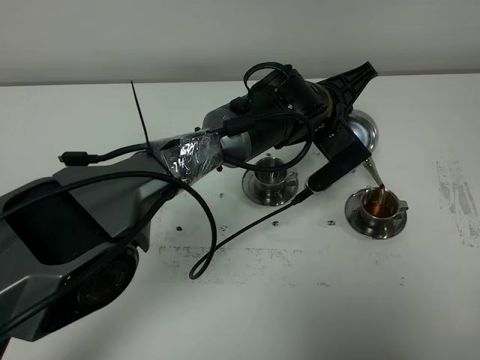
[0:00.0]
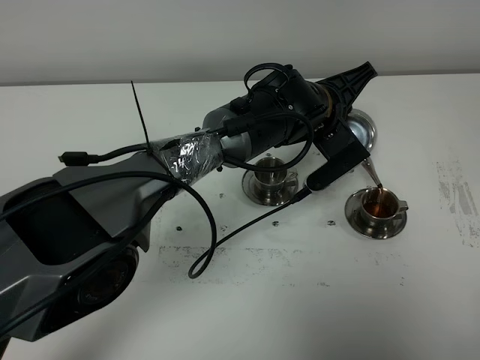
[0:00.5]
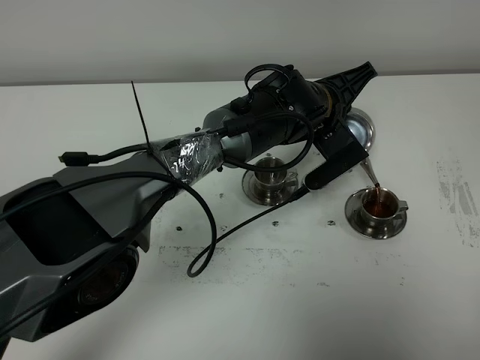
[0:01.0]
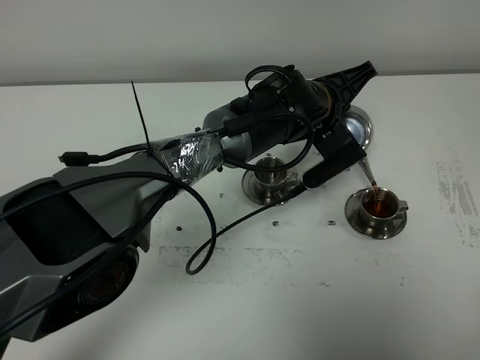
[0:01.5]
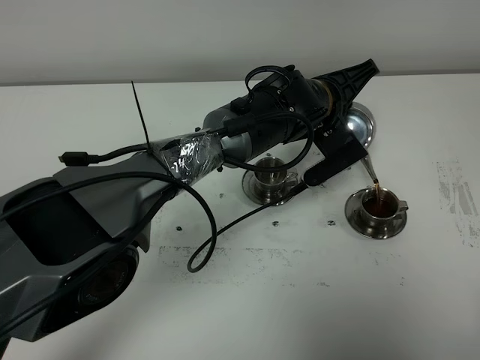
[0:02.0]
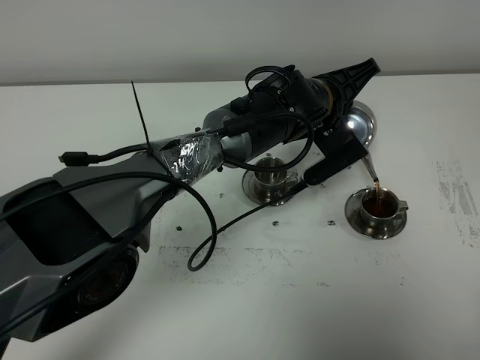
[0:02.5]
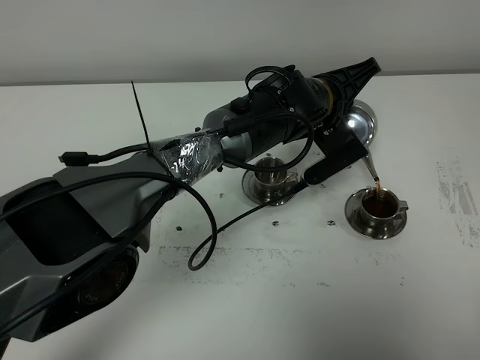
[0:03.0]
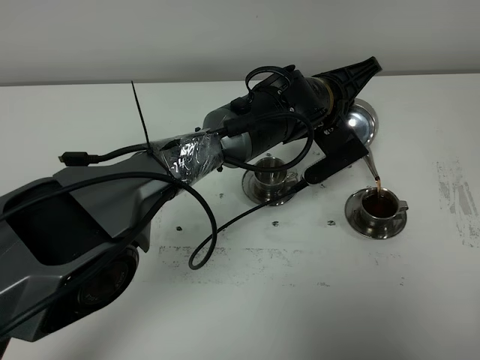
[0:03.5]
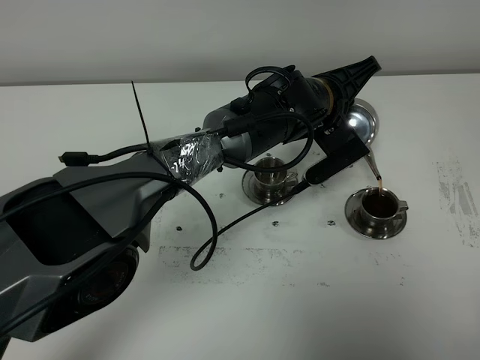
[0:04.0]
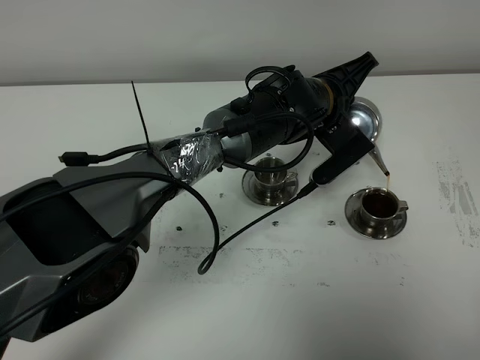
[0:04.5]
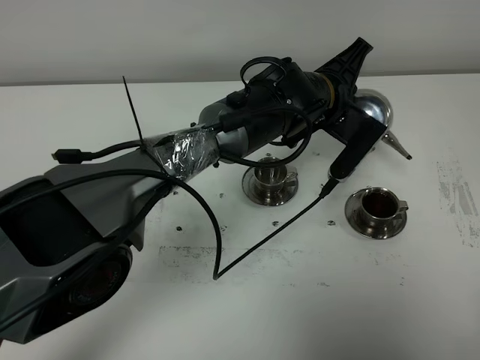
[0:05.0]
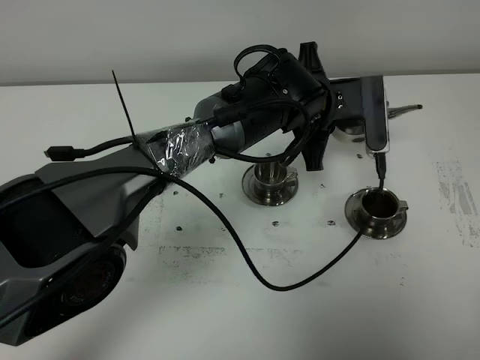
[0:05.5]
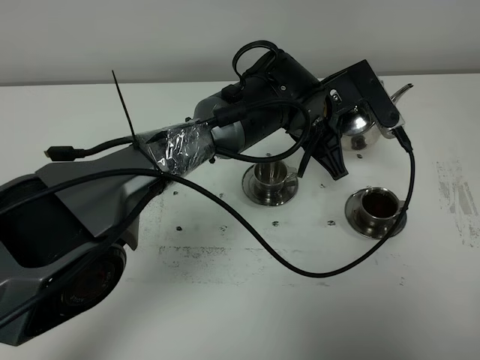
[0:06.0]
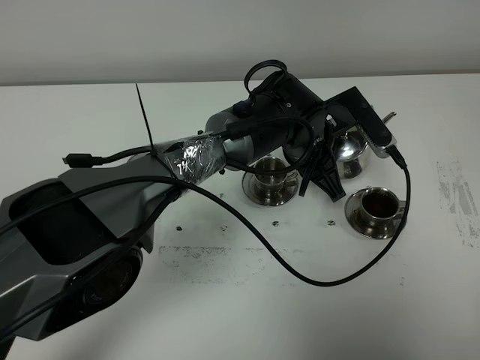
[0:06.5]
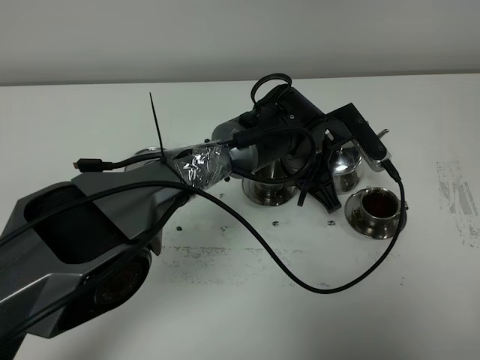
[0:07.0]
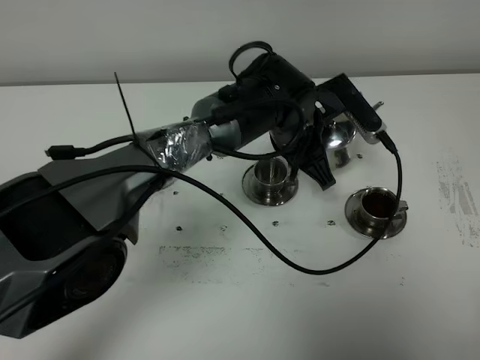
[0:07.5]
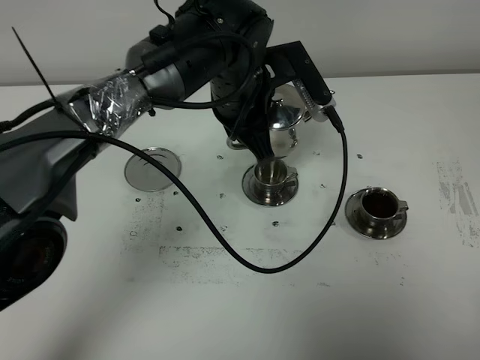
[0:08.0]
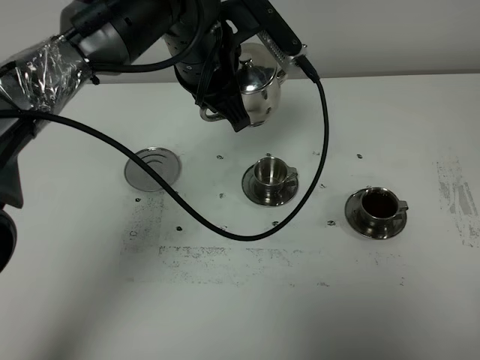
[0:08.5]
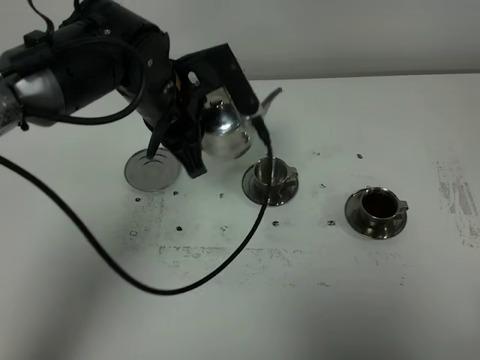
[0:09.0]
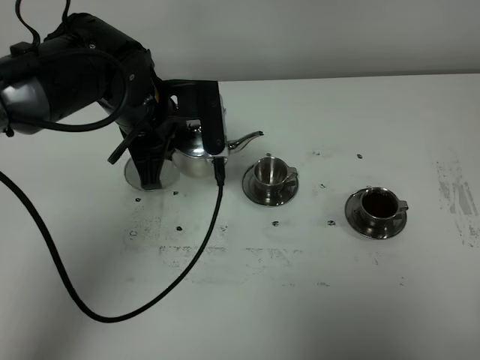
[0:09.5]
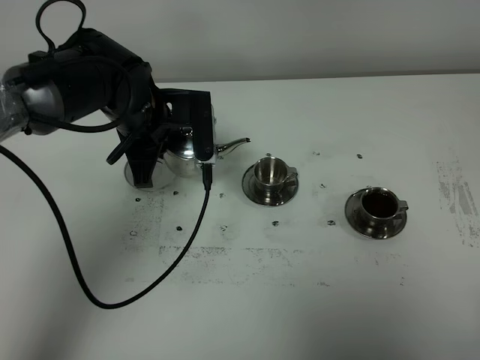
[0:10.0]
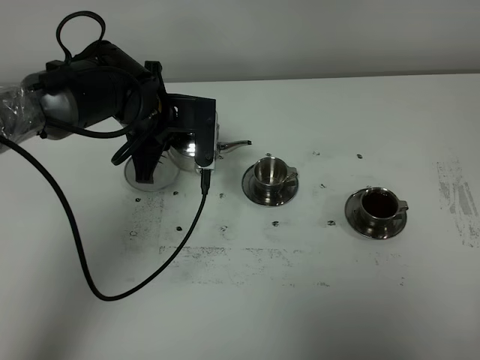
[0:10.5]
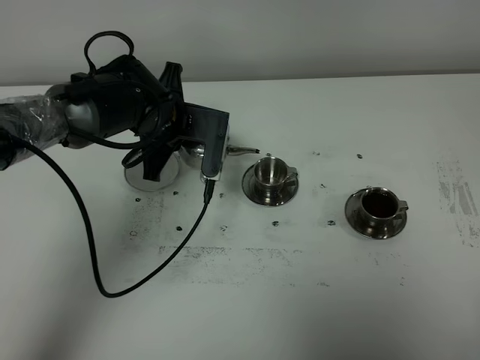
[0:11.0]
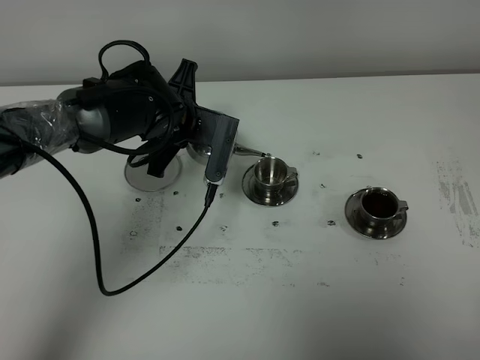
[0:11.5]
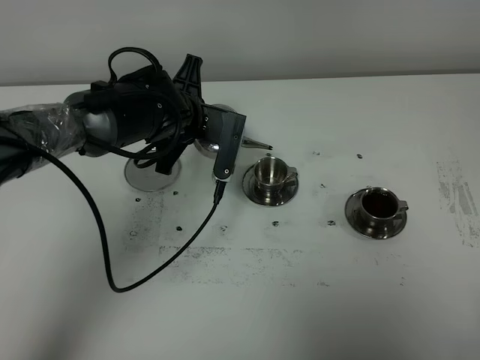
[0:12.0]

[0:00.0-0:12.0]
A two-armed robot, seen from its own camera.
Task of the whole recording: grasp the stainless steel teapot and pour the tea into the two stainless steel teacups one by one, put the stainless steel teapot back in its original place.
0:00.0 to 0:02.0: There are only small adjustments of the grippers.
0:02.0 to 0:04.0: Both grippers stay about where they are.
0:06.0 to 0:08.0: The left gripper is displaced to the left and upward by about 10 cm.
0:08.0 to 0:10.0: The left gripper moves to the left, about 10 cm.
0:10.0 to 0:12.0: The left gripper ends up some 5 cm from where it was.

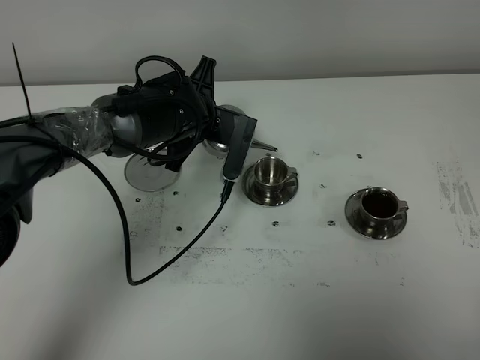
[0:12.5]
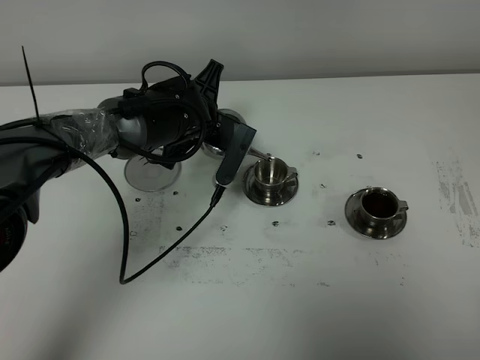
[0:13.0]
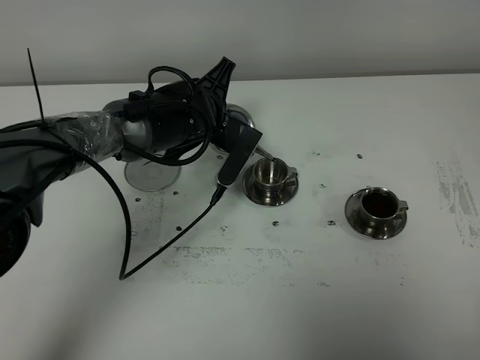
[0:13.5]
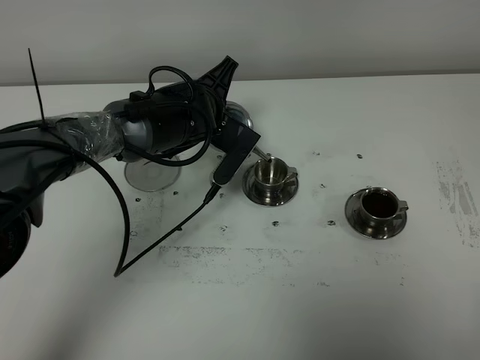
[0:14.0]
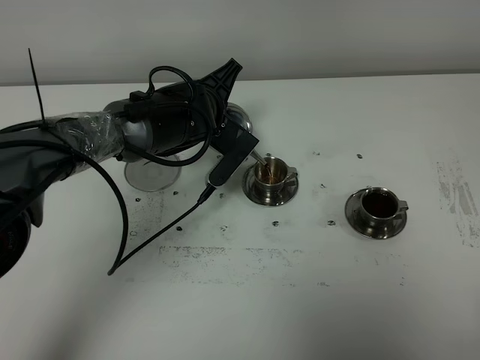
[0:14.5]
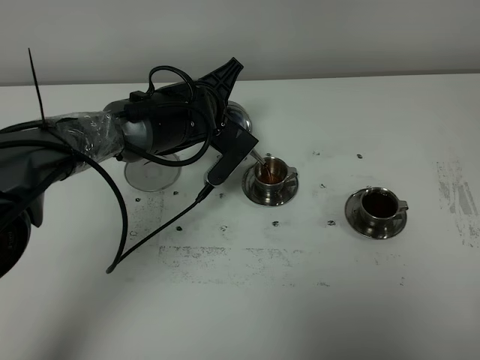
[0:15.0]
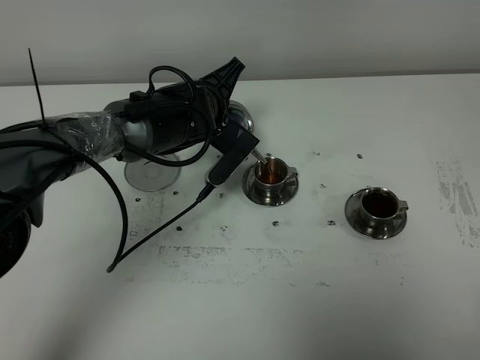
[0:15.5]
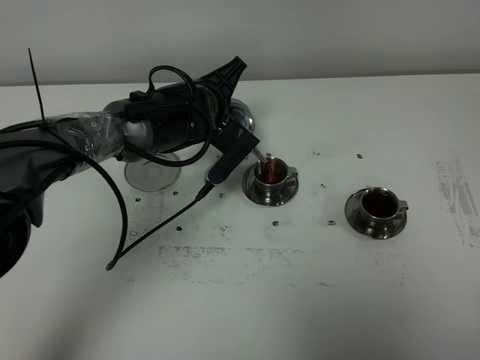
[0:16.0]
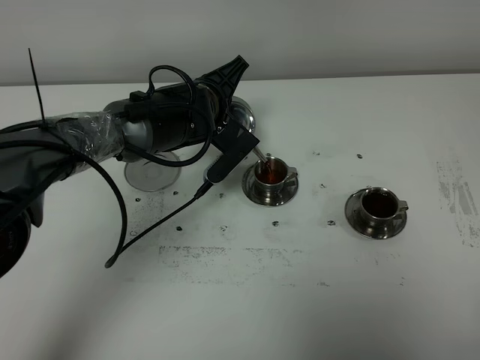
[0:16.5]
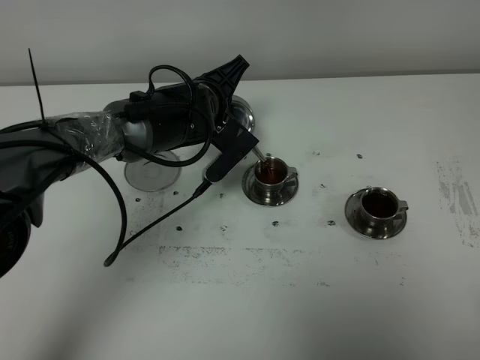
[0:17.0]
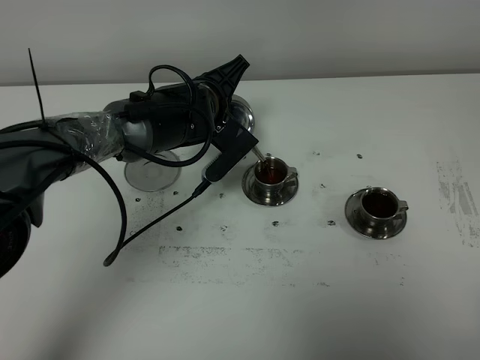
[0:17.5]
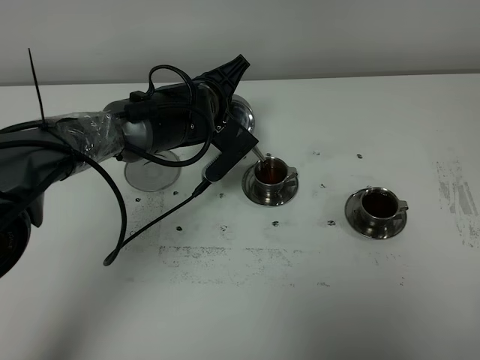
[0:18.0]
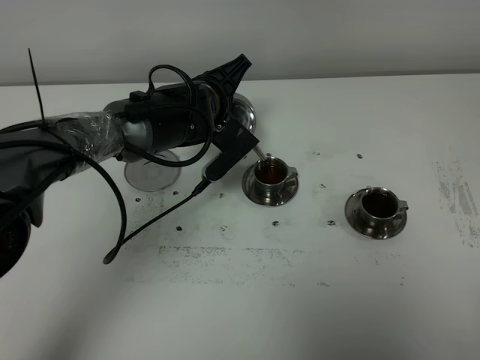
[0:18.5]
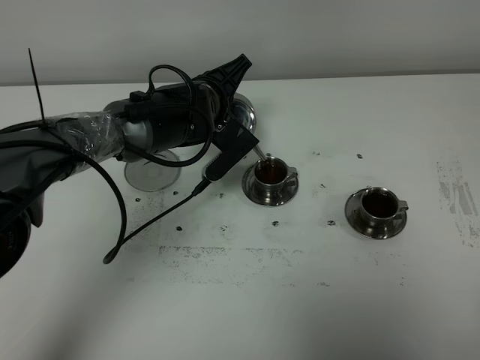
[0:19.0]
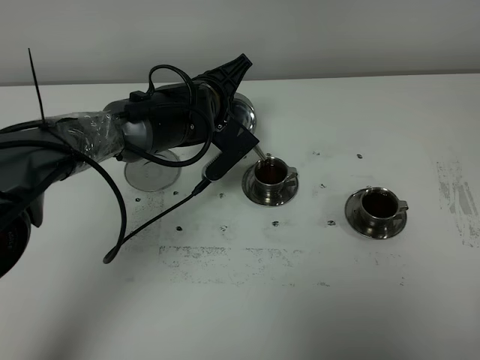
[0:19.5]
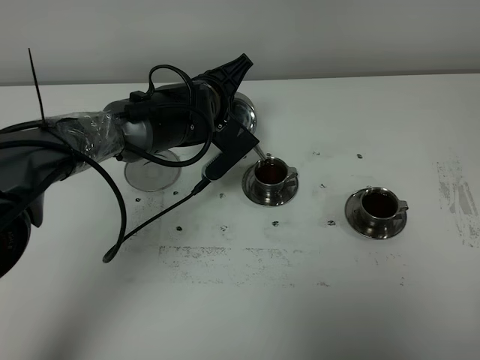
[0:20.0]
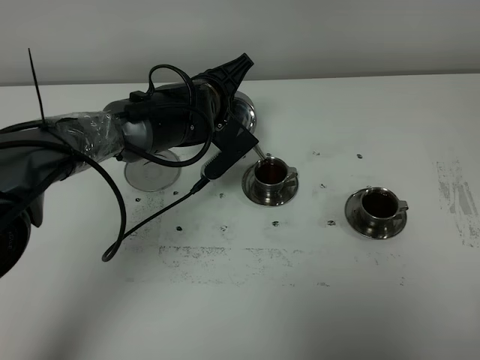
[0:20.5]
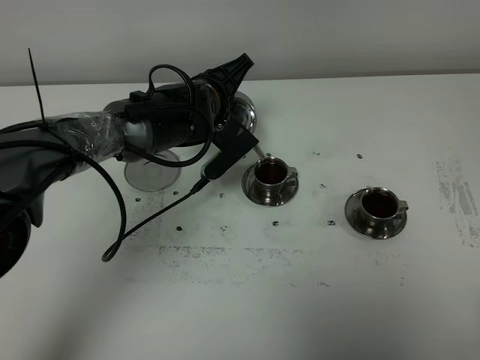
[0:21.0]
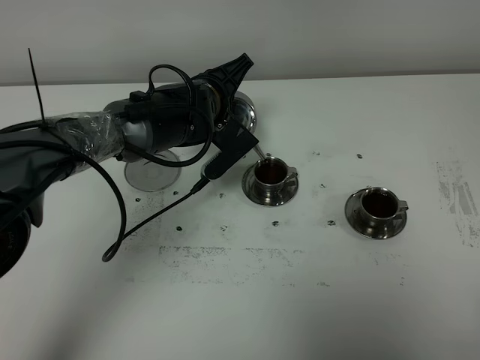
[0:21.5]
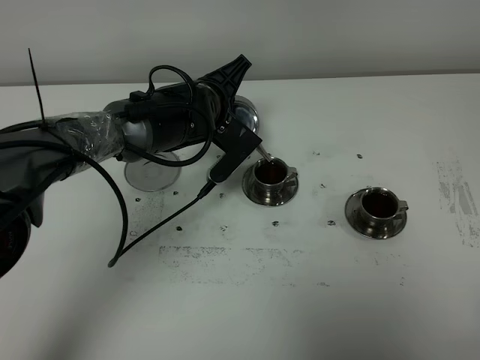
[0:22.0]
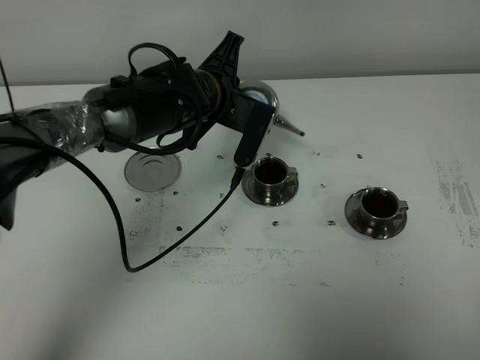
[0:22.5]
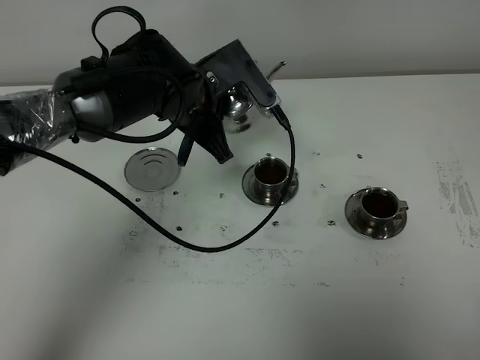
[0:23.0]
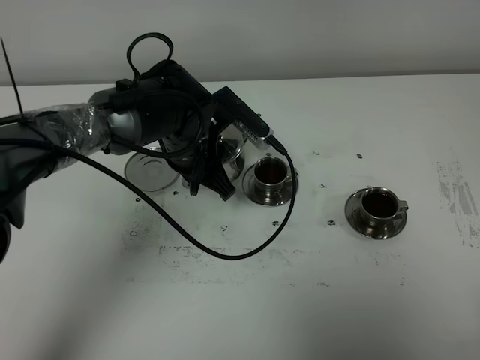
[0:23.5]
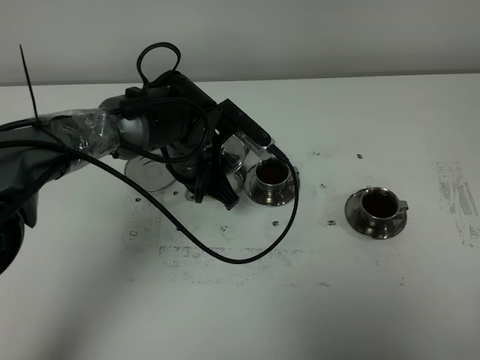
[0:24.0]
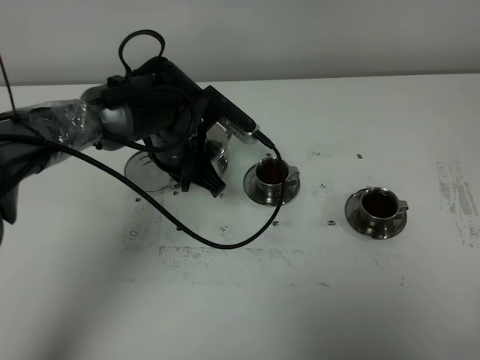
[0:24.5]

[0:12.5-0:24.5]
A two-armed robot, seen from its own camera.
Task of the whole recording: grasp the stainless steel teapot and pour the tea into the two stainless steel teacups one by one, put the stainless steel teapot back in its original place.
Step, 0:12.5 to 0:22.0: Pour tea into the teacup with the left gripper.
0:14.5 to 0:16.5: The grippers stay close to where they were, moving slightly.
0:16.5 to 0:20.5: Both grippers stay put.
0:22.5 to 0:24.5: The left gripper shifts by approximately 5 cm.

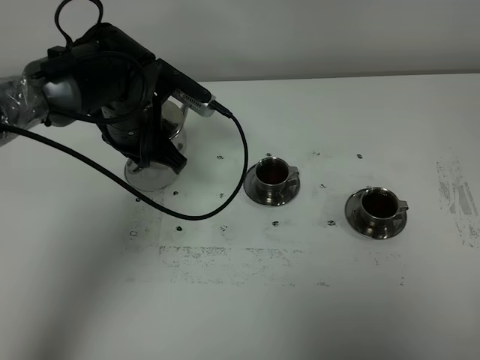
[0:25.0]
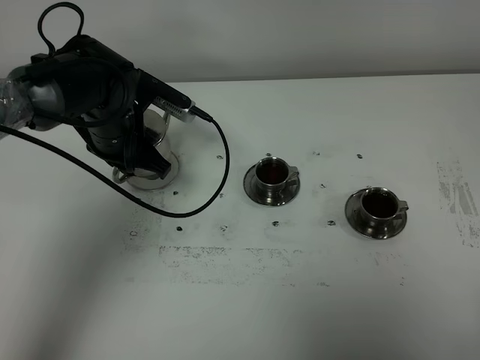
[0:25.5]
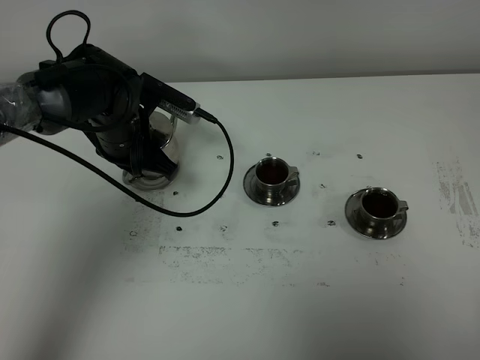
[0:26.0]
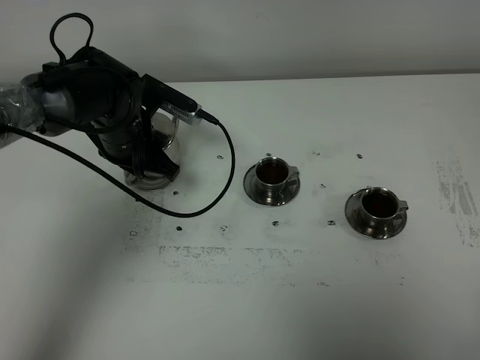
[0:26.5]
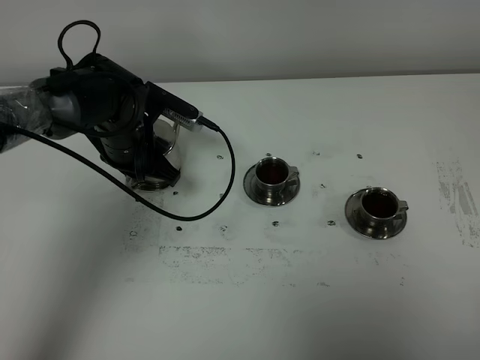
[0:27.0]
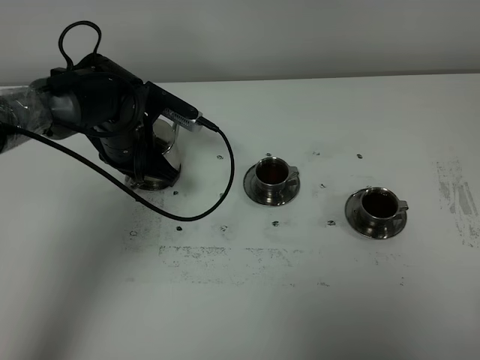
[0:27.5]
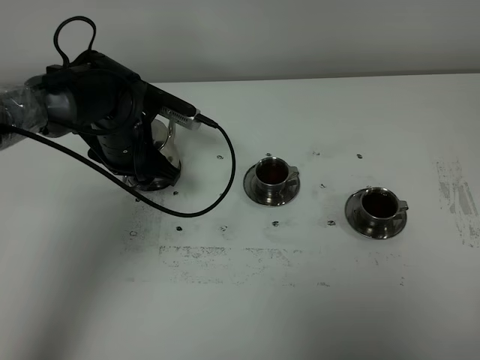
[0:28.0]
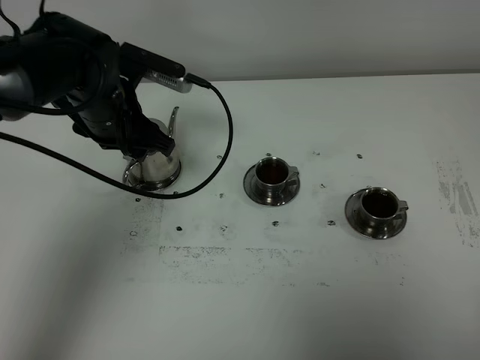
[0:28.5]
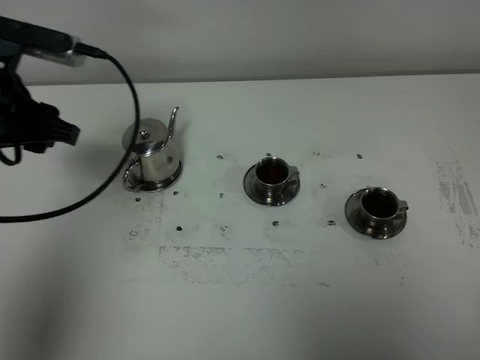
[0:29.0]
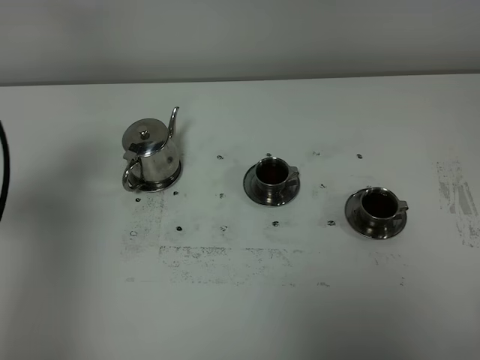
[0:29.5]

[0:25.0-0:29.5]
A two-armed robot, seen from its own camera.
Task of the whole recording: grasp the stainless steel teapot and pour the tea into the two stainless steel teacups one by one, put the stainless steel teapot back in its original place.
0:25.0 to 0:27.0: The left gripper moves roughly 5 cm.
0:27.0 to 0:29.5: The left gripper travels backward, upward and to the left by roughly 35 cm, and opens its fingers.
